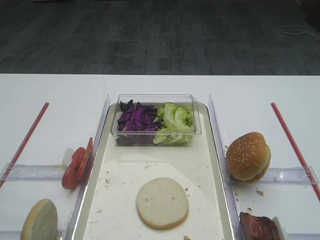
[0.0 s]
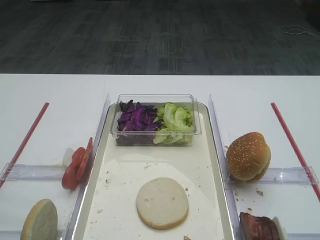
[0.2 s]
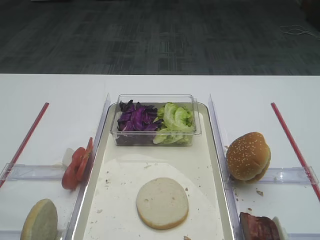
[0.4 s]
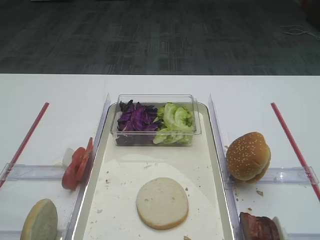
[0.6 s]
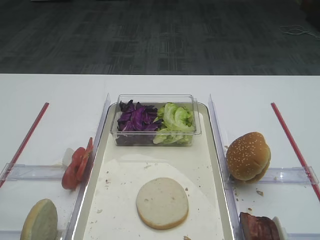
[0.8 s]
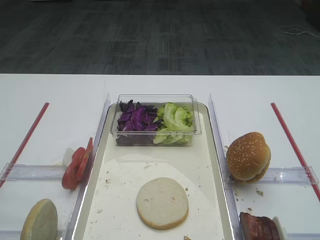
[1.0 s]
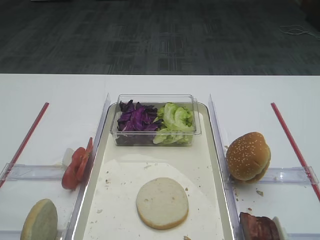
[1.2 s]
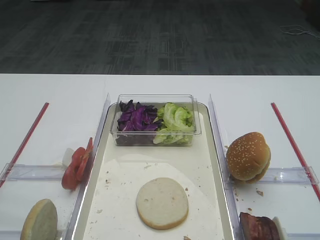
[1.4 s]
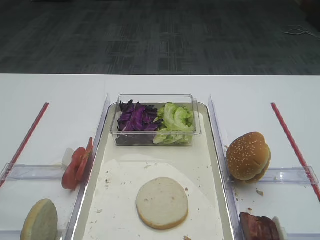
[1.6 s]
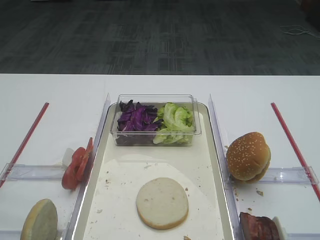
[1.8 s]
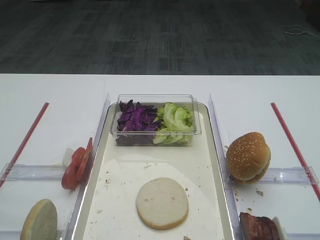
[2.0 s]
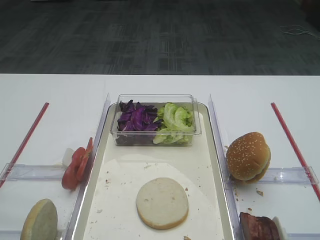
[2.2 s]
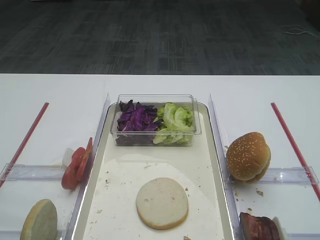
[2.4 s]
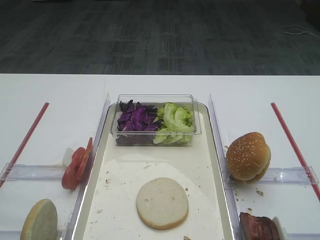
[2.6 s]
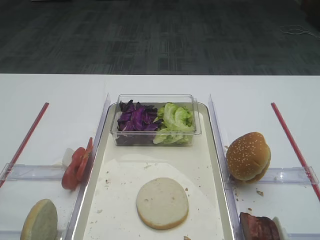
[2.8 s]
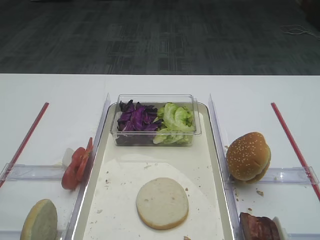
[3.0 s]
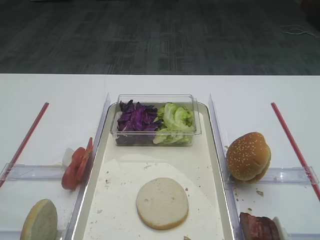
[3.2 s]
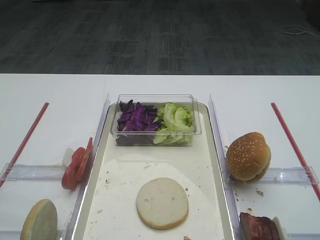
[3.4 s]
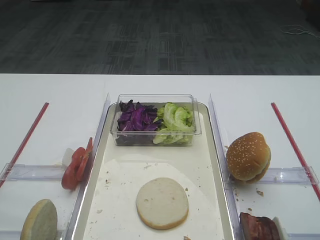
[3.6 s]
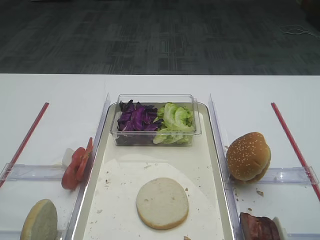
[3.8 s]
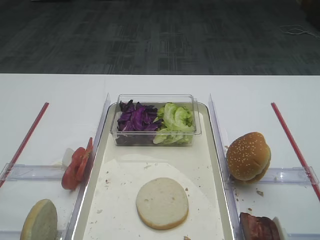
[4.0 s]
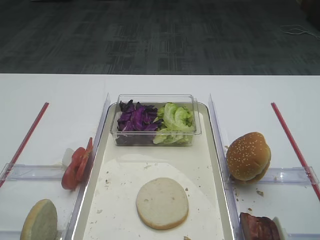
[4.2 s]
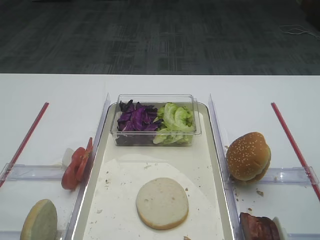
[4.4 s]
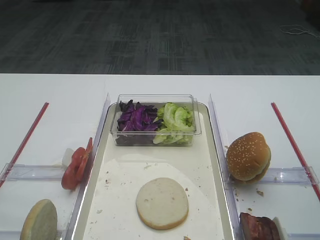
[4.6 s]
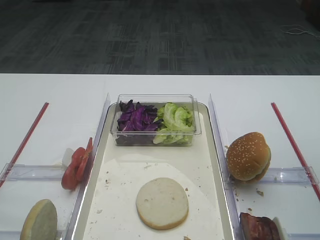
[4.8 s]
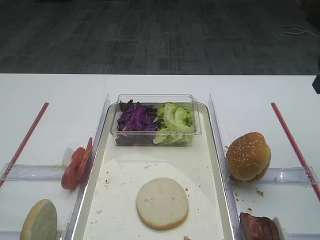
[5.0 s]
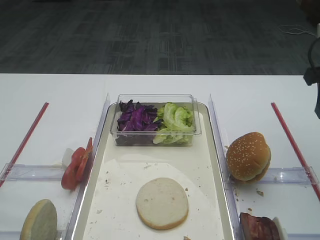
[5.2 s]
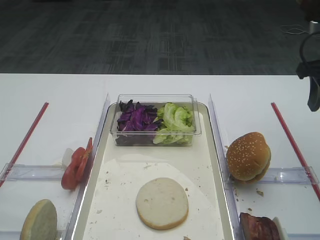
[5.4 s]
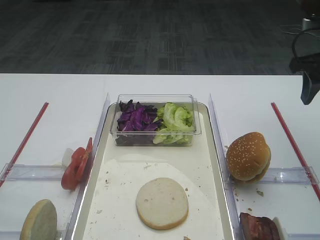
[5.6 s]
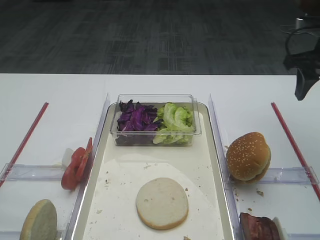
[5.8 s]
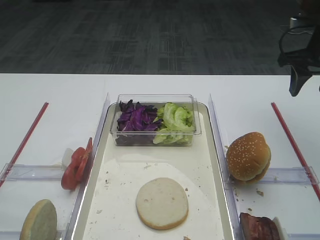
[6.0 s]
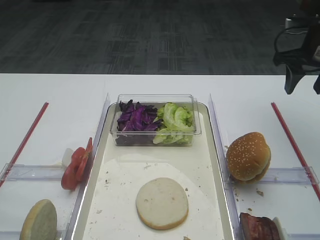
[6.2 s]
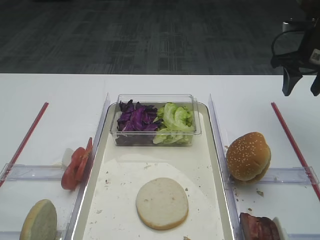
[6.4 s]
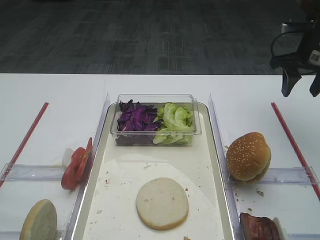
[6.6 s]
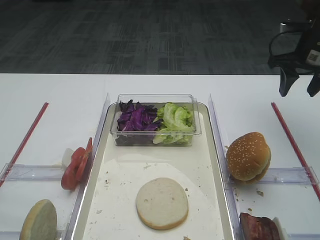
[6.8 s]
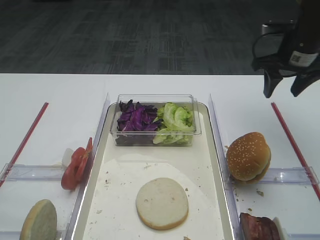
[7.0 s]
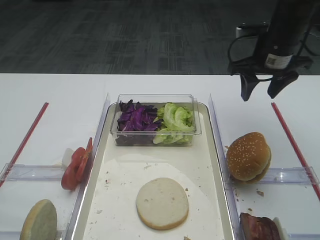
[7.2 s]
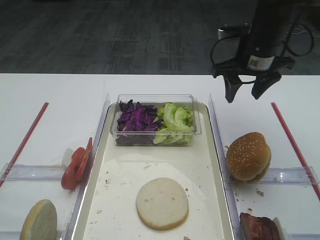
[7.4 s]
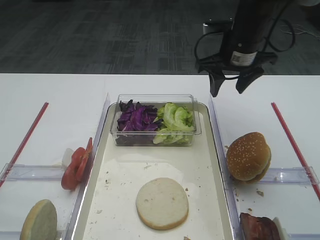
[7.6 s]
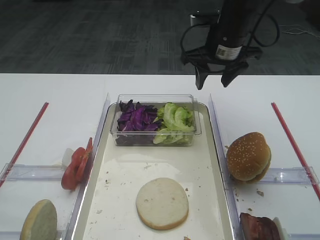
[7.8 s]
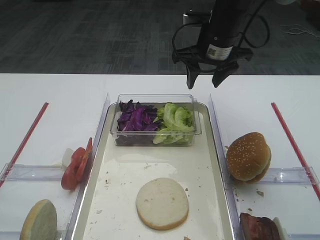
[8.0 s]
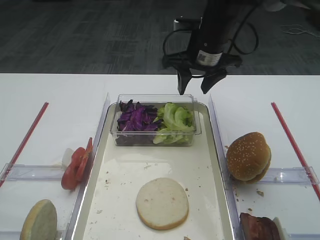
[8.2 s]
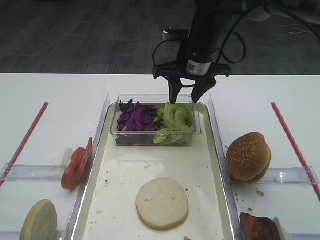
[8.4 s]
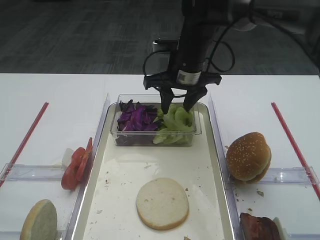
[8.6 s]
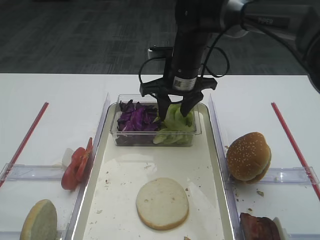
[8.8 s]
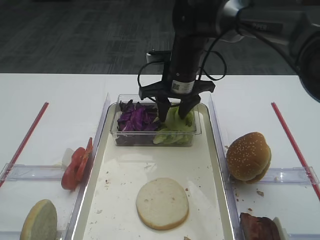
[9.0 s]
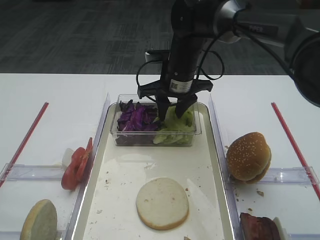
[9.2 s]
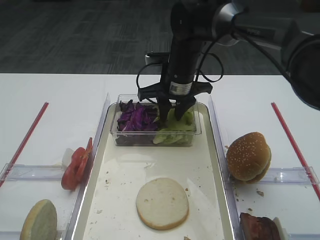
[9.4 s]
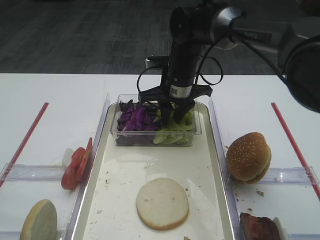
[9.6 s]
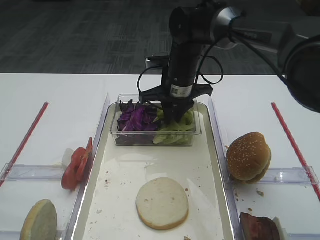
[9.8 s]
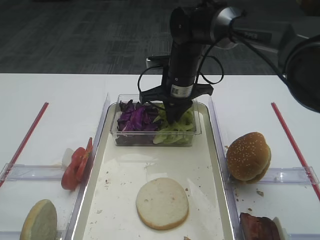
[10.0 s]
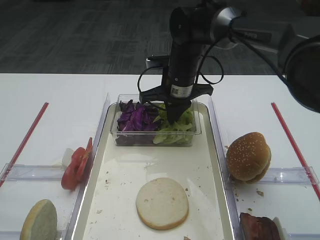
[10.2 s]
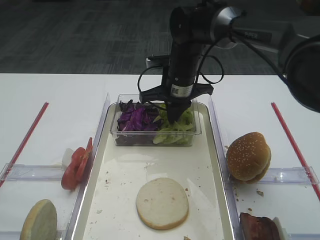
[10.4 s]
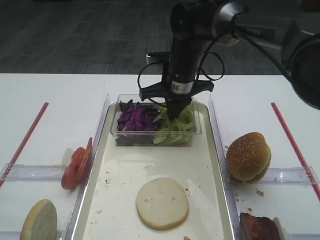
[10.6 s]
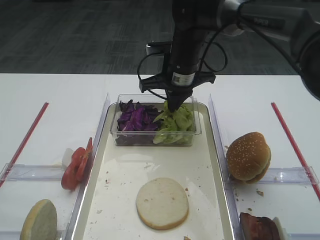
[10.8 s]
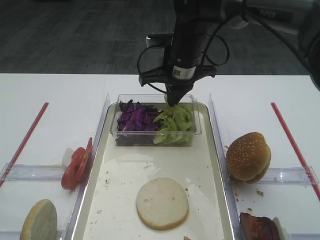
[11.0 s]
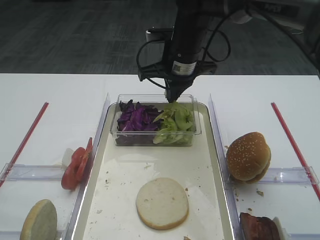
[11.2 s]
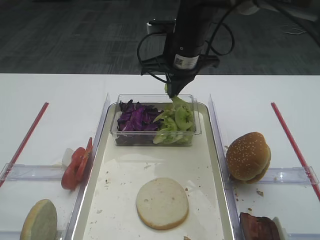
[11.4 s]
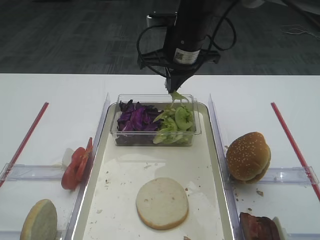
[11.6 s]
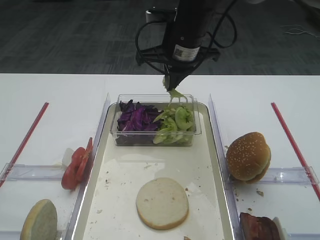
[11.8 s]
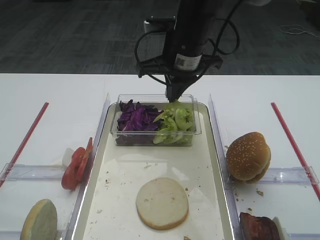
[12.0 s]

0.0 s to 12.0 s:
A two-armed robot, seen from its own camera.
Step, 0.0 to 10.6 s: Pick up the lettuce leaf with the right gripper.
4.4 to 6.0 s: The right gripper moves forward, roughly 20 cm.
6.0 to 7.6 s: The right gripper heads to the left, covering some 15 cm.
7.6 to 9.0 s: The right gripper is displaced to the left by roughly 10 cm.
9.0 to 10.4 s: The right gripper closes up.
10.4 to 12.0 s: The right gripper travels upward by roughly 10 cm.

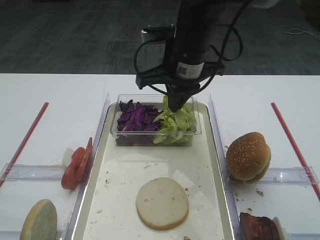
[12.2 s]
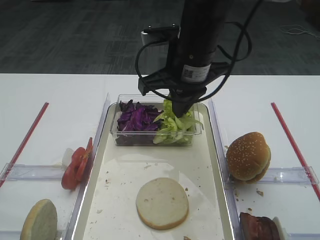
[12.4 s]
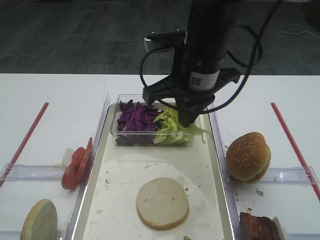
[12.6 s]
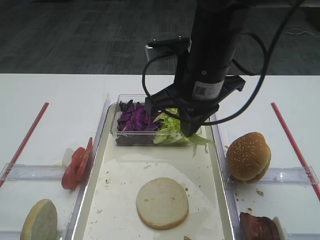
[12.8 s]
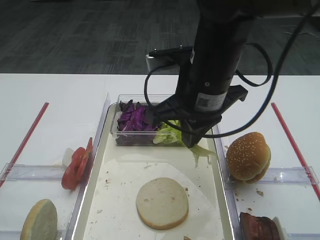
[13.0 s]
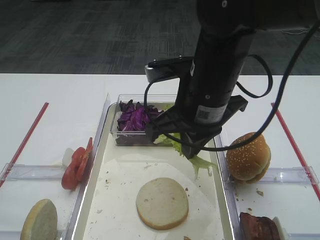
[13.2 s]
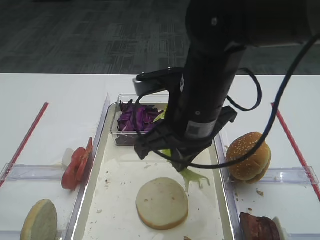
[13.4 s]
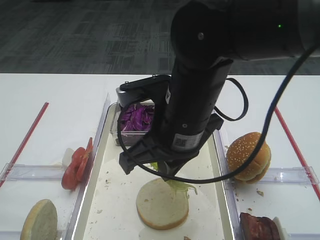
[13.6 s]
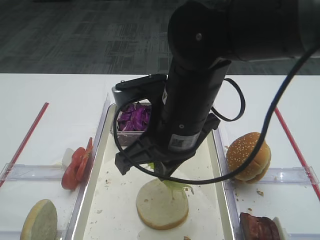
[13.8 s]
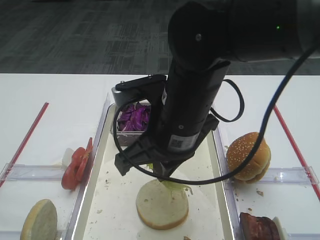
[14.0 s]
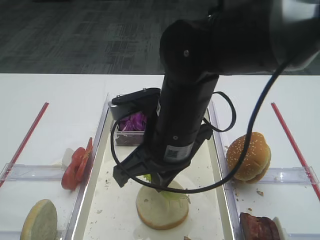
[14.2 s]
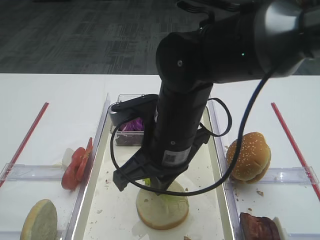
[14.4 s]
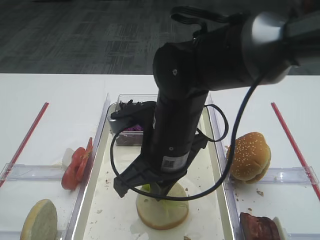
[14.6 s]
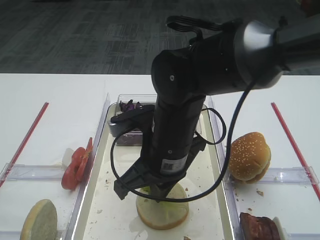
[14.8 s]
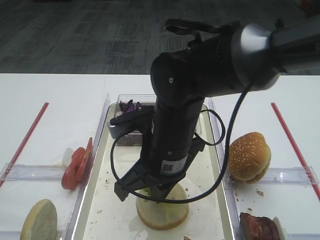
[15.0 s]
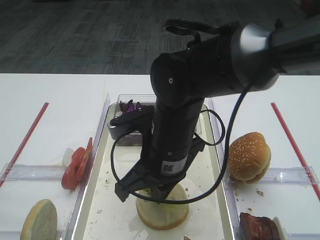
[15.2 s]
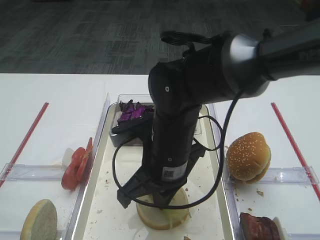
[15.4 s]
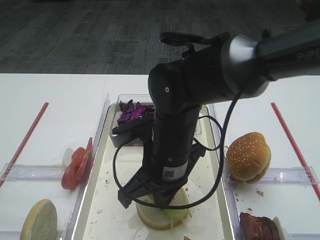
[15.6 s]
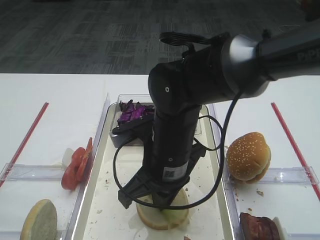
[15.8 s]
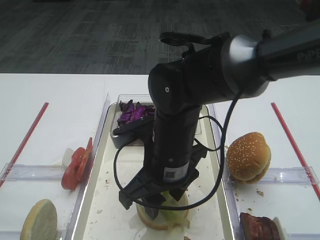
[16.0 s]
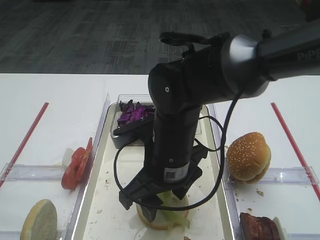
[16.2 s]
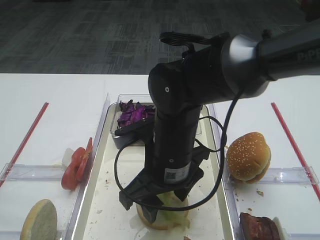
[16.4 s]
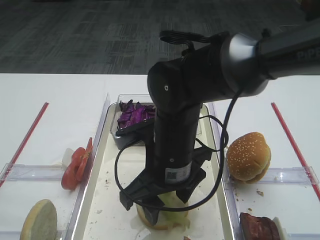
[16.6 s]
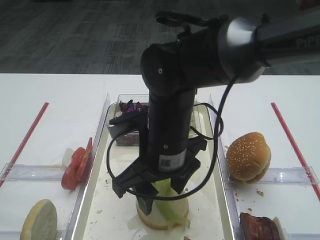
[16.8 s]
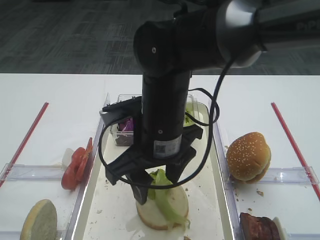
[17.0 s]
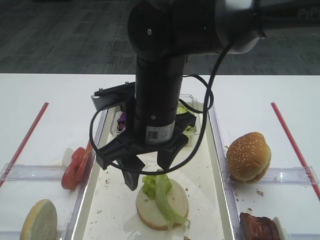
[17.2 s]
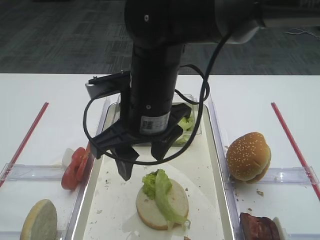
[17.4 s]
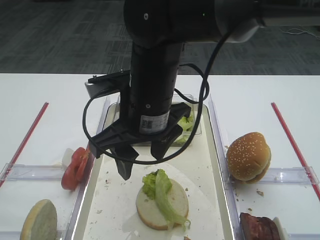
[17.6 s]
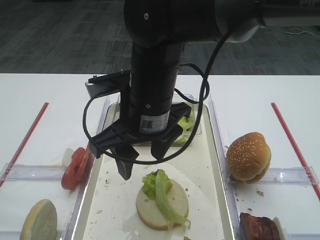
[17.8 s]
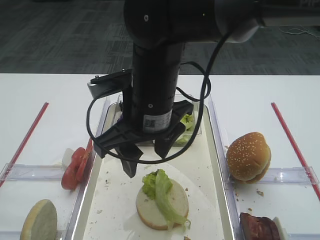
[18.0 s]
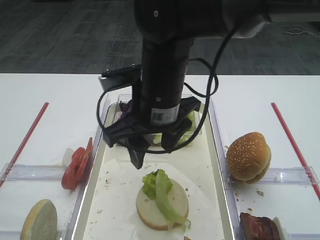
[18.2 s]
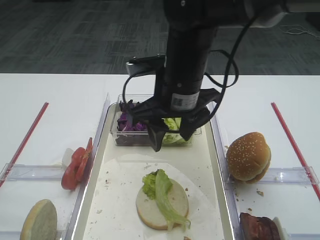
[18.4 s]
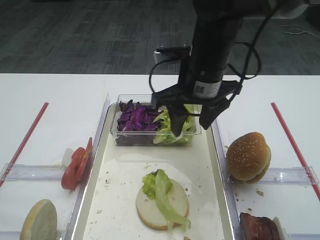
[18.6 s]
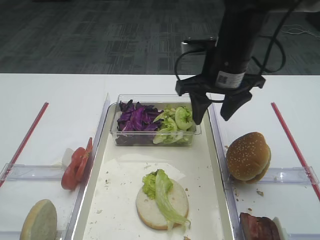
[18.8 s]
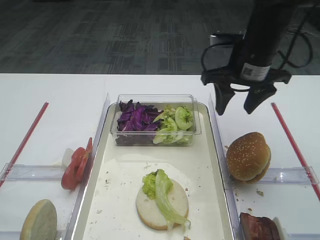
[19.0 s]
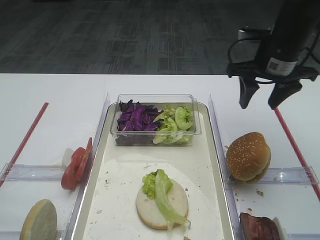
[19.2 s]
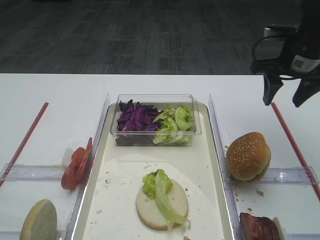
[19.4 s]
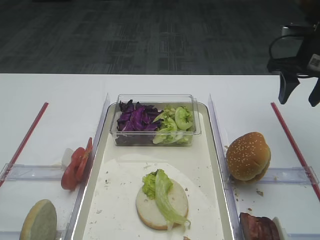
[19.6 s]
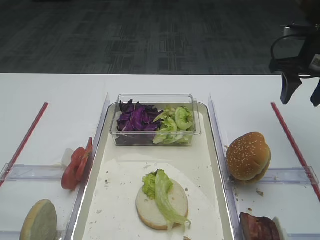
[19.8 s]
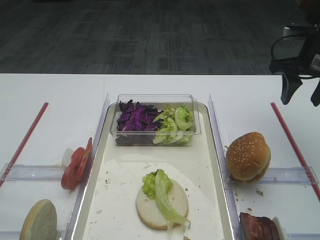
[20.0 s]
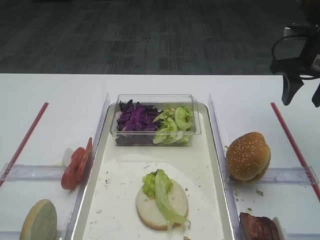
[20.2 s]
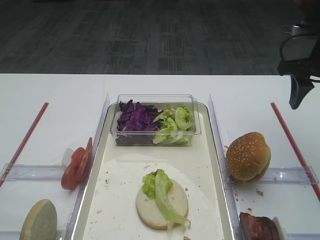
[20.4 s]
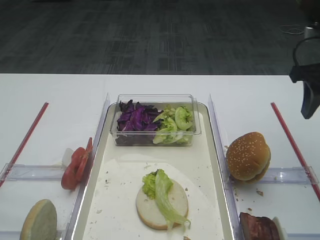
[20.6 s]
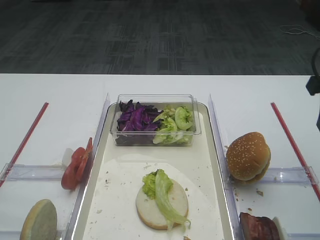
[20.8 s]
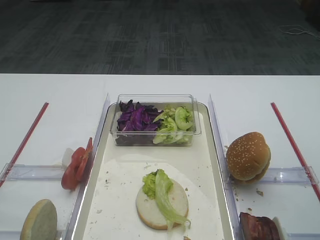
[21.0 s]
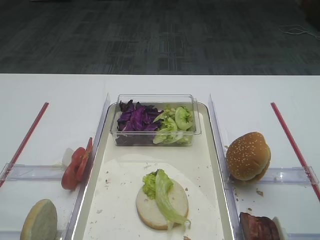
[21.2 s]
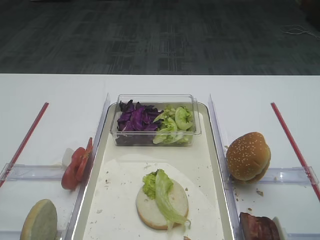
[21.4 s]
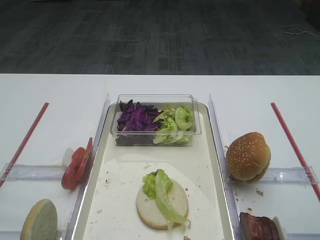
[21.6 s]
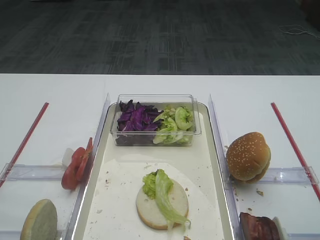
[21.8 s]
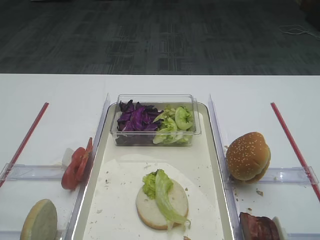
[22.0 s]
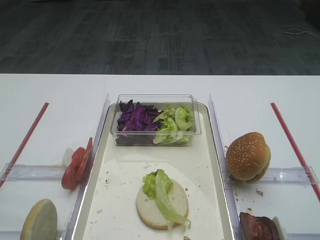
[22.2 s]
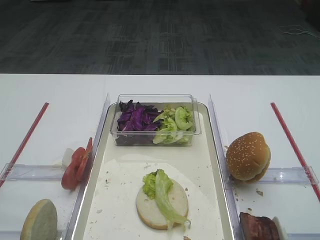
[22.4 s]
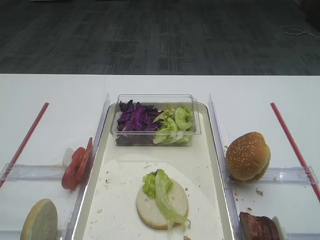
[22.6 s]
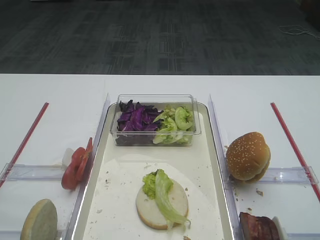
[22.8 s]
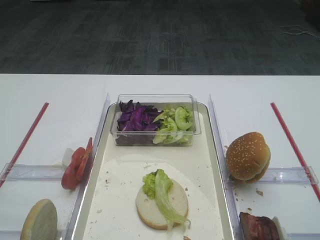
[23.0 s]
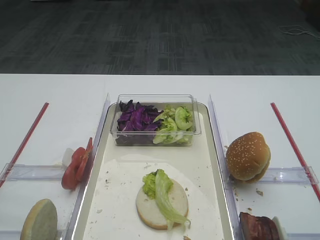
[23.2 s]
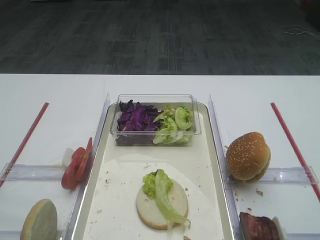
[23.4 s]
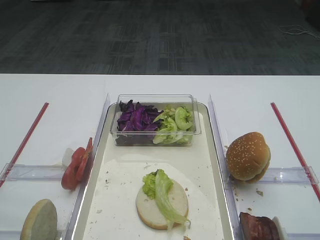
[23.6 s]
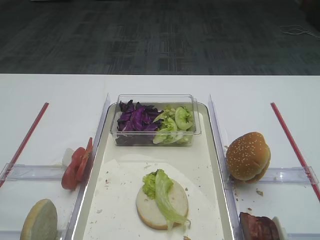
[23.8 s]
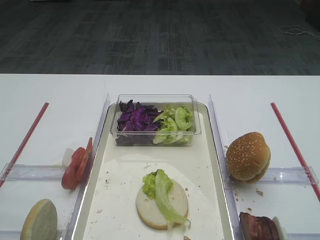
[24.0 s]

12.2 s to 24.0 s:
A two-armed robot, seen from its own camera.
Step, 12.2 to 16.6 s: Place the lettuce leaf on the bread slice with the right gripper.
12.2 to 13.6 s: The right gripper shifts roughly 15 cm backward.
13.6 to 15.2 s: The right gripper goes approximately 5 cm downward.
15.2 to 16.6 s: The right gripper opens.
16.6 to 18.2 s: The right gripper shifts roughly 5 cm upward.
18.2 to 19.6 s: The right gripper is displaced to the right and forward by roughly 30 cm.
19.6 to 21.0 s: The right gripper shifts some 15 cm backward.
